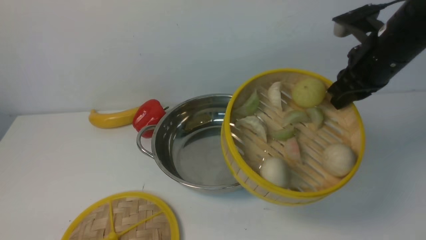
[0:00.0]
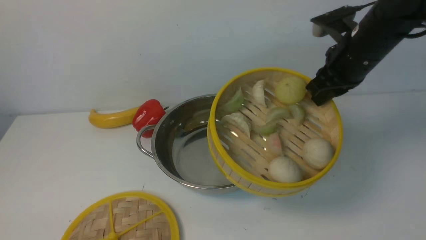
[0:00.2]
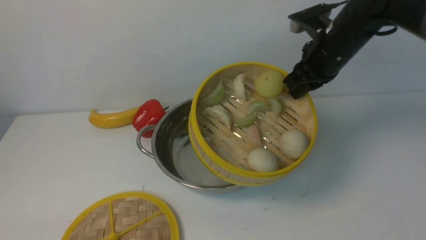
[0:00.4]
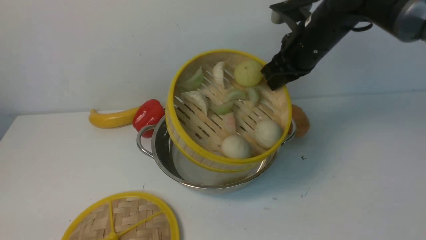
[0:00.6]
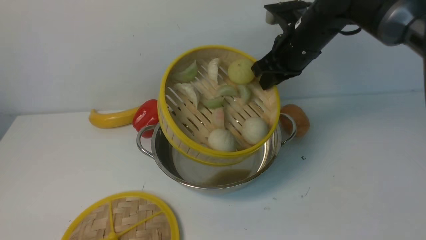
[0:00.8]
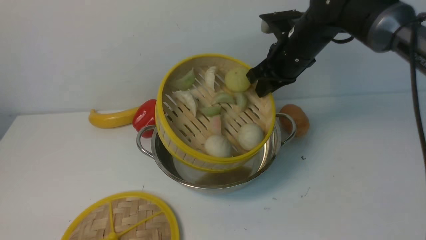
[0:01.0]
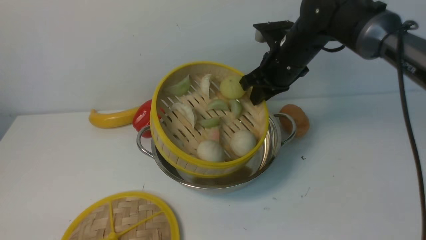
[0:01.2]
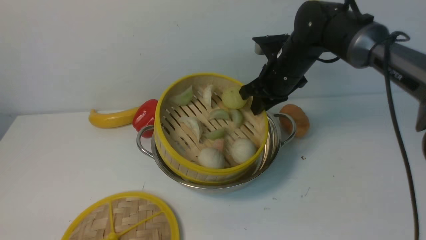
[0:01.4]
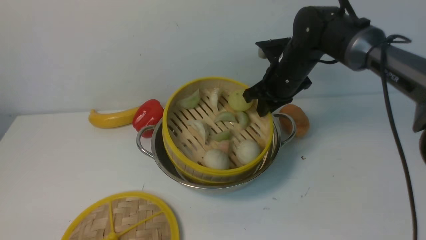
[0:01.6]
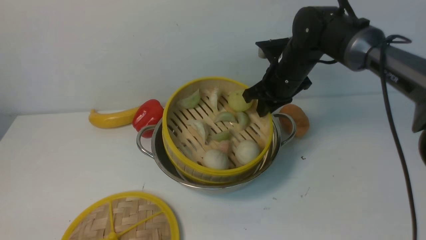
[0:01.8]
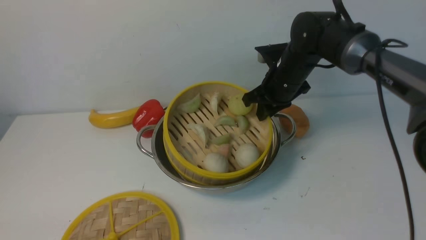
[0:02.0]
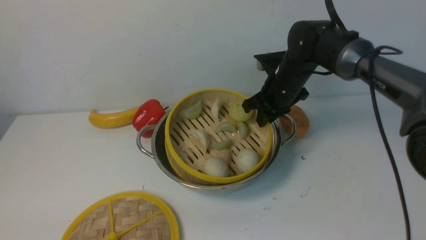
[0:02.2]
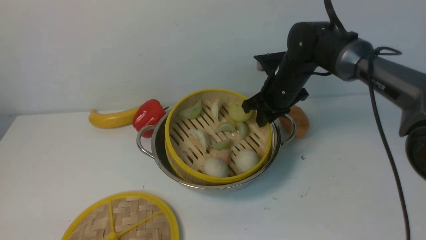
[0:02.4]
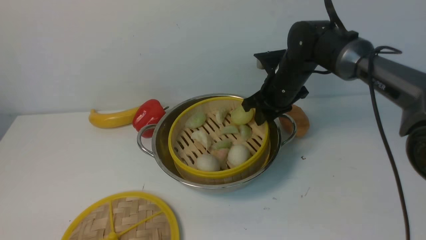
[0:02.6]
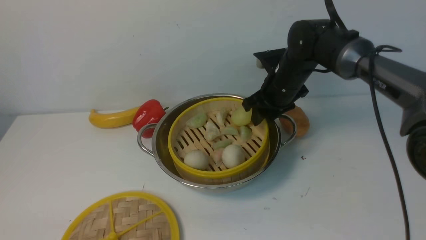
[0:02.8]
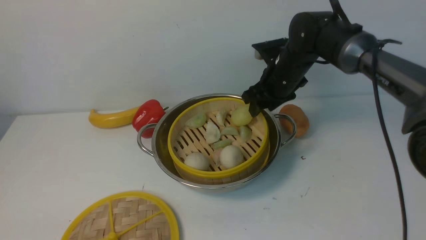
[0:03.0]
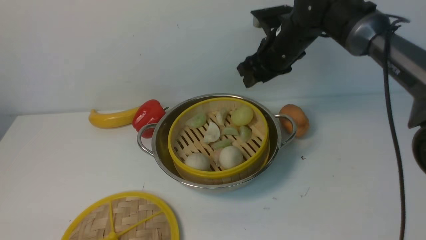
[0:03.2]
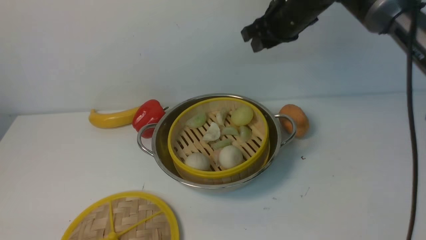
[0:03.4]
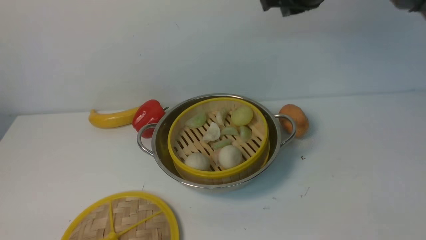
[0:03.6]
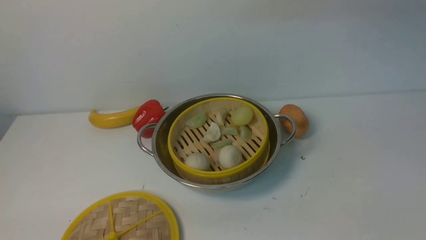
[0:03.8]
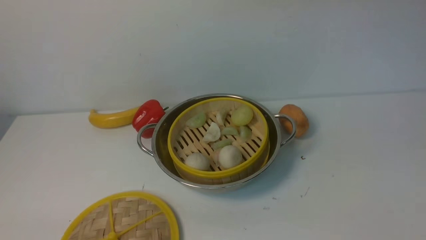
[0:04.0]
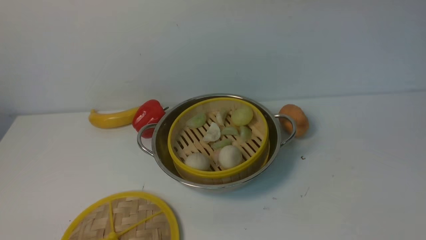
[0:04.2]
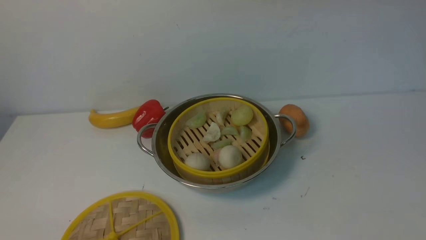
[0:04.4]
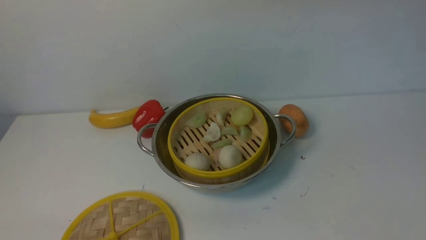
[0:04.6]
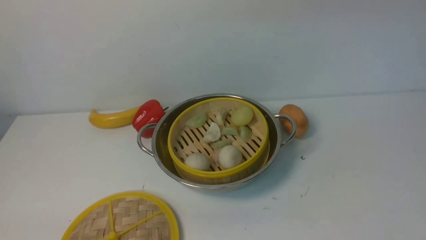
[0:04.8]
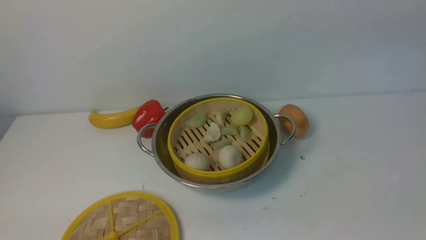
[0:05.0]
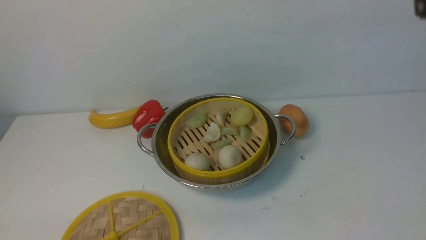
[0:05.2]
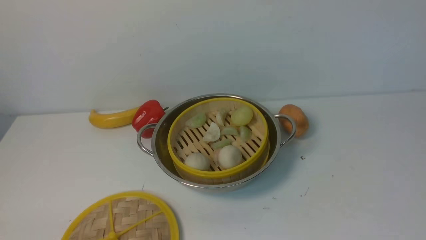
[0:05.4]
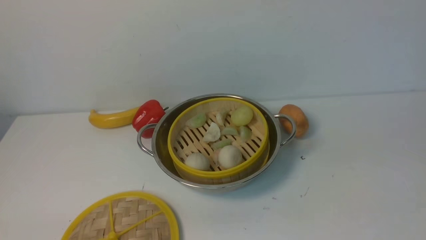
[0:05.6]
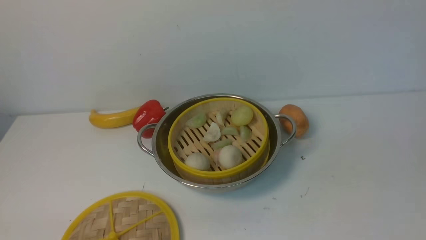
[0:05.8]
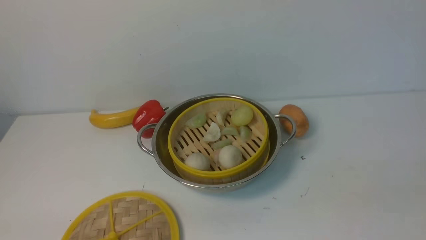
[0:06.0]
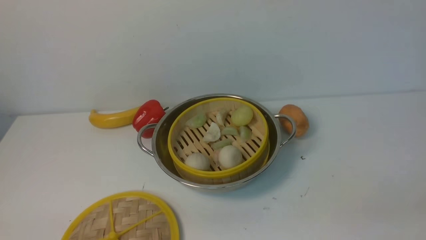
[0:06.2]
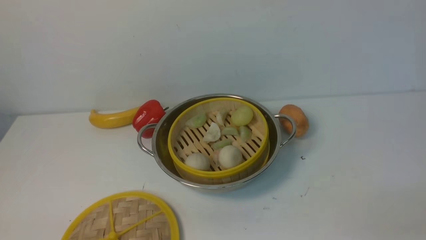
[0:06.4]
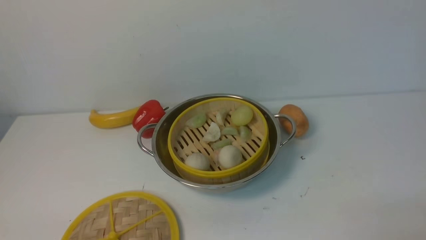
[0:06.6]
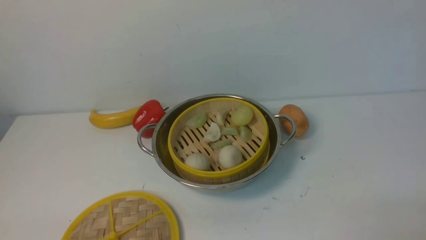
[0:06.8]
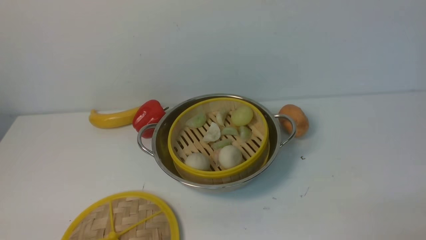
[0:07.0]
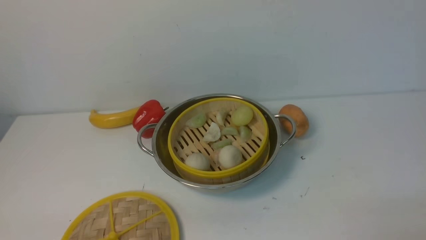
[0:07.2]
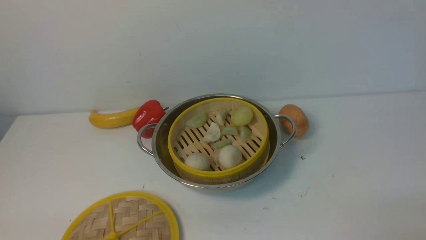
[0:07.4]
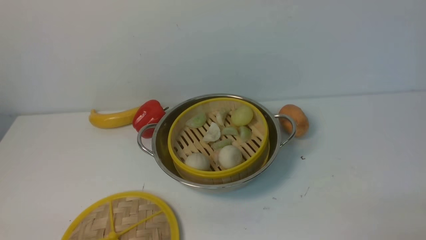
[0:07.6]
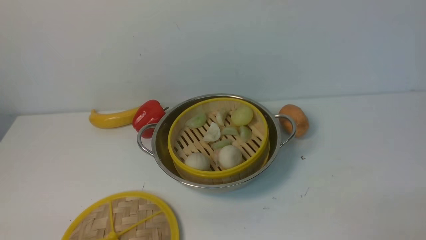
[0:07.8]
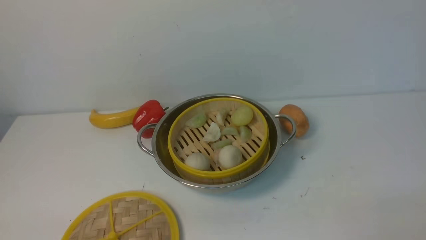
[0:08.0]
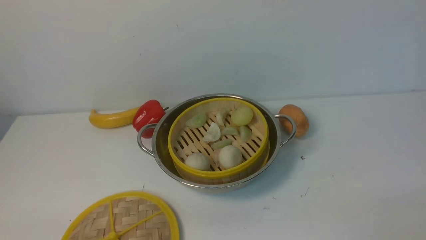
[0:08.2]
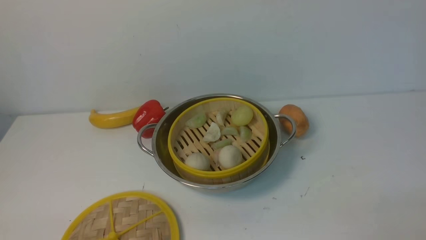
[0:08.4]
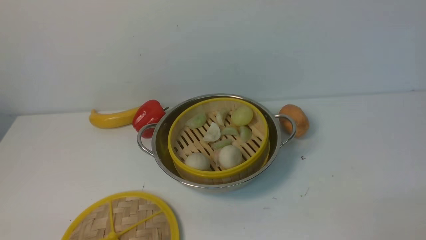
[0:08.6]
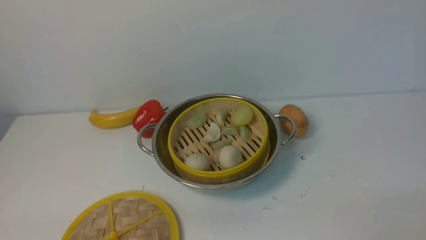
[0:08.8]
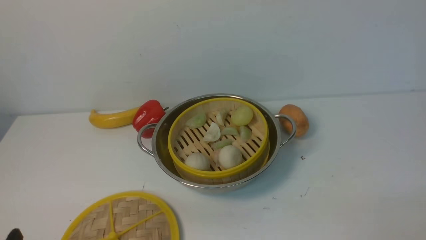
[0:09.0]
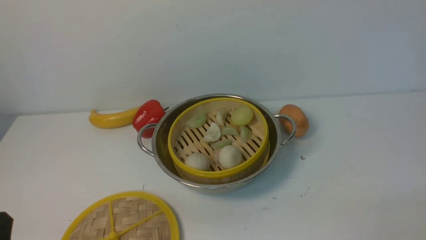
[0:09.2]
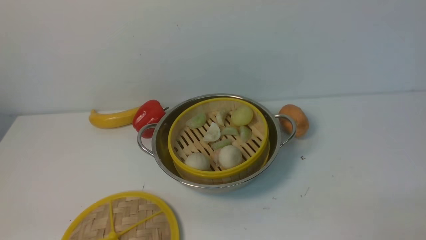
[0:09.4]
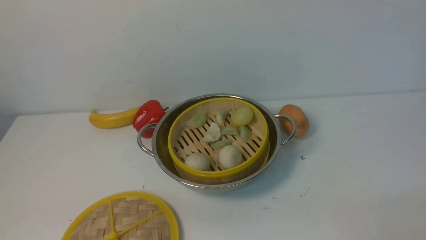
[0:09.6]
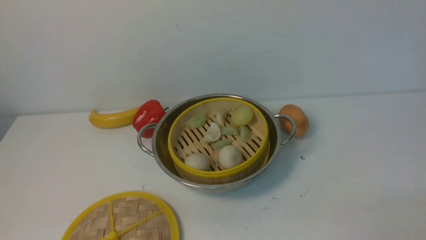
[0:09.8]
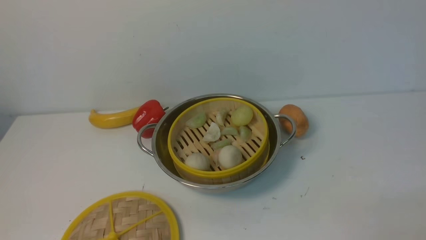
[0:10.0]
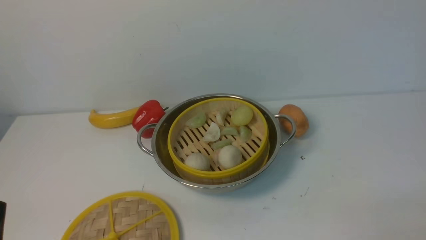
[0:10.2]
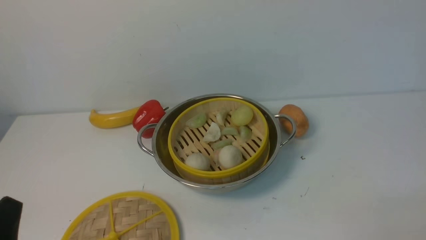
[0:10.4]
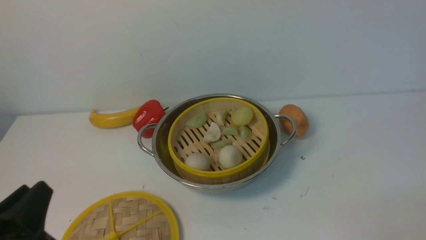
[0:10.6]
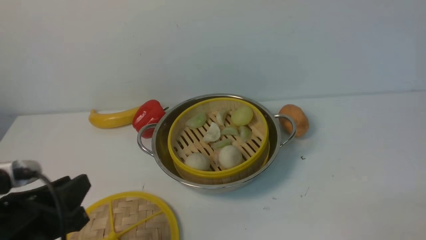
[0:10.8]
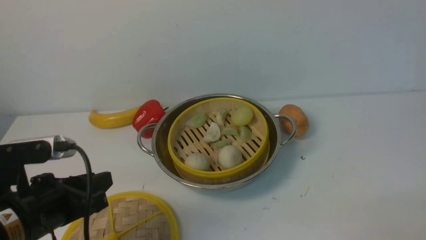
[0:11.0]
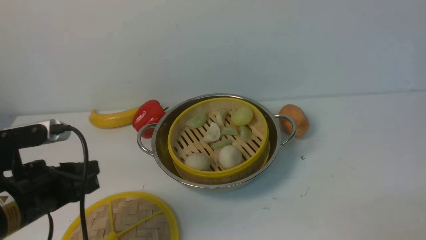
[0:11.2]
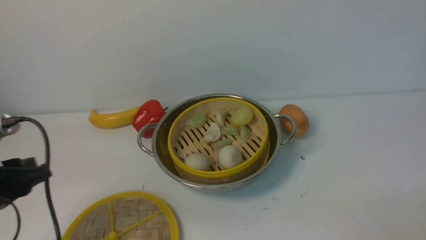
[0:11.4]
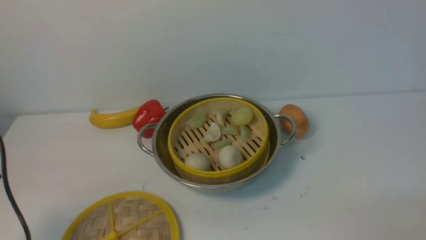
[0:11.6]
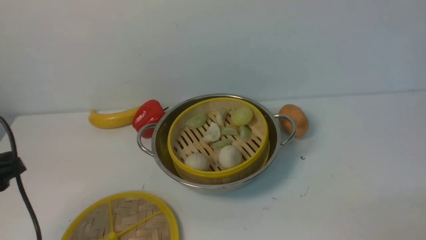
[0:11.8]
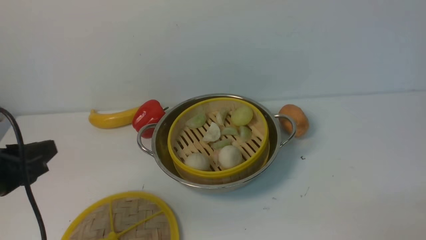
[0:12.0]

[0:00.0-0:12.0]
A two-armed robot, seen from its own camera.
Task of the whole recording: place the steamer in the pot on the white table, and put the lid on the steamer.
Step, 0:00.0 to 0:03.4: use the right arm to put the steamer into the iron steamer pot in the middle.
0:00.0 to 0:01.6: The right gripper moves to the left, forward and downward, approximately 15 cm.
0:01.6 to 0:03.0: The right gripper opens.
0:03.0 to 0:04.4: The right gripper moves upward, approximately 25 cm, and closes up.
0:04.4 to 0:06.0: The right gripper is displaced backward, downward and to the right by roughly 40 cm, and opens up.
0:10.4 to 0:12.0: The left gripper shifts roughly 10 cm forward.

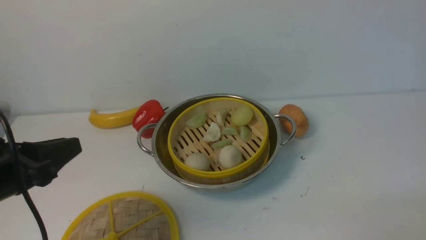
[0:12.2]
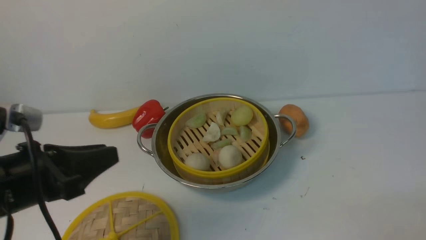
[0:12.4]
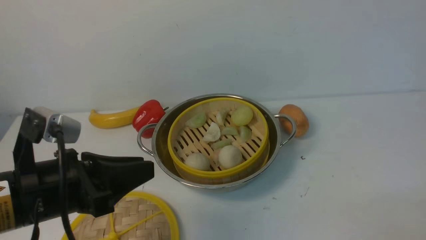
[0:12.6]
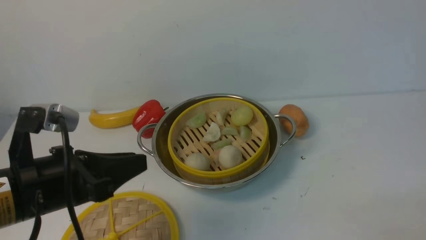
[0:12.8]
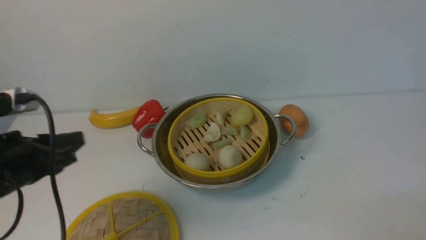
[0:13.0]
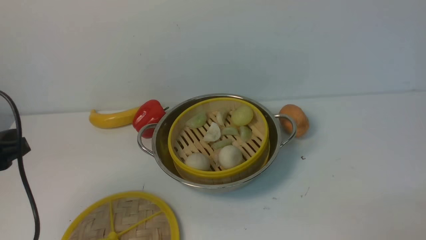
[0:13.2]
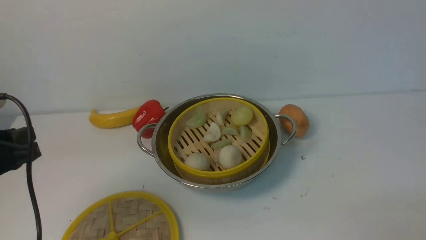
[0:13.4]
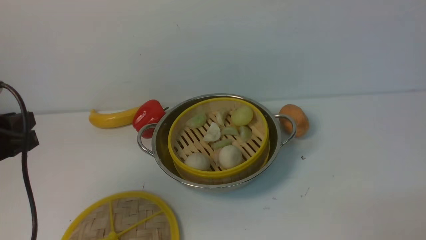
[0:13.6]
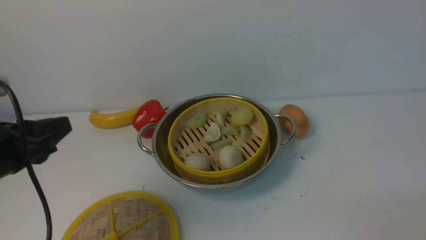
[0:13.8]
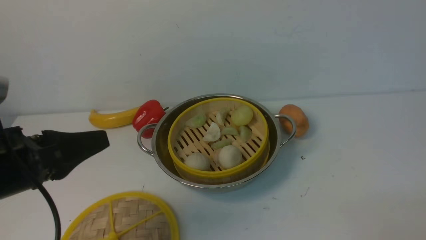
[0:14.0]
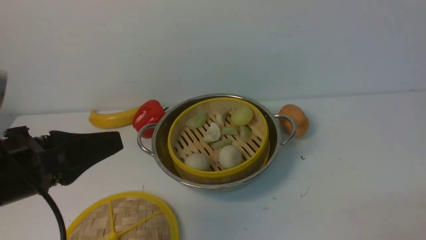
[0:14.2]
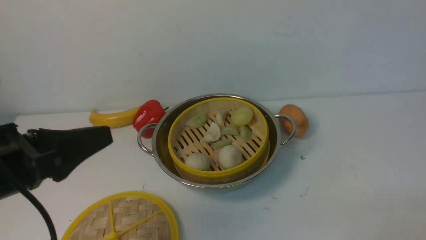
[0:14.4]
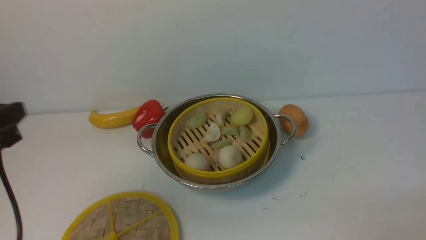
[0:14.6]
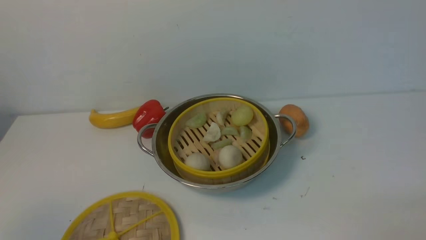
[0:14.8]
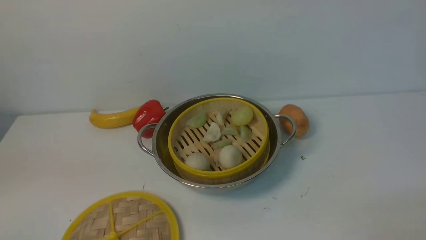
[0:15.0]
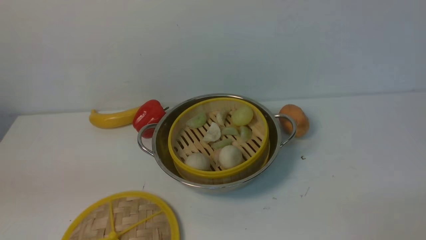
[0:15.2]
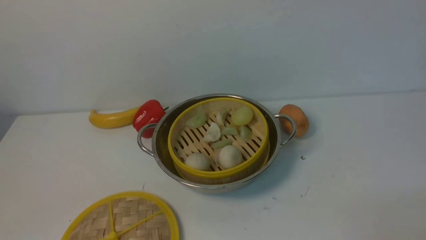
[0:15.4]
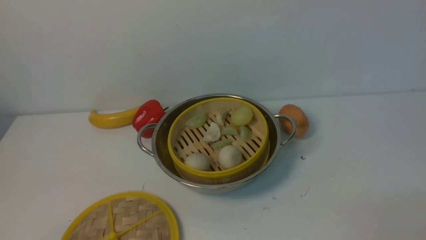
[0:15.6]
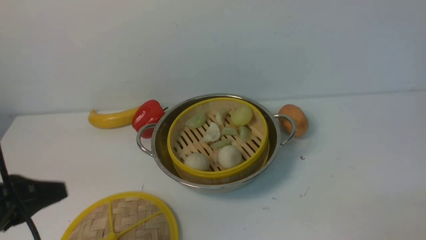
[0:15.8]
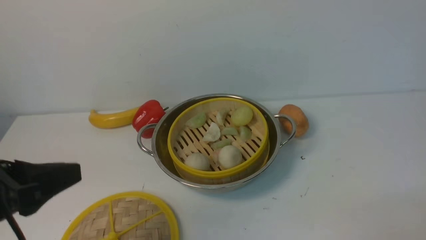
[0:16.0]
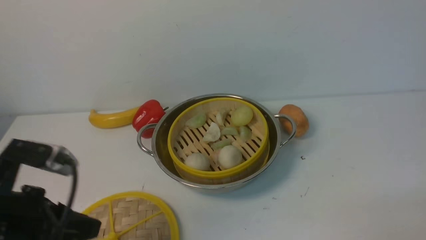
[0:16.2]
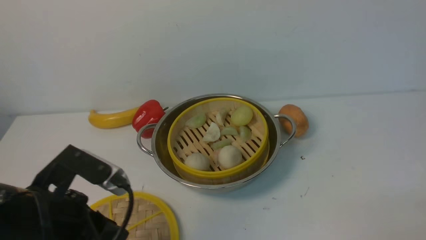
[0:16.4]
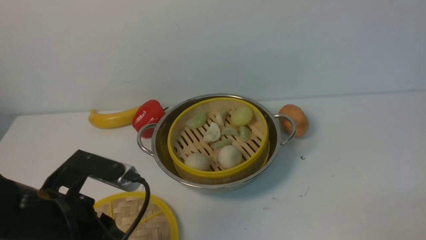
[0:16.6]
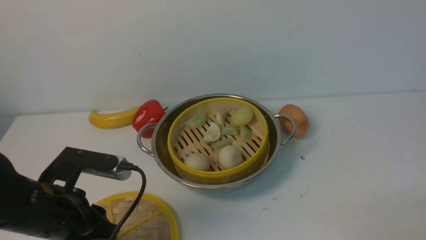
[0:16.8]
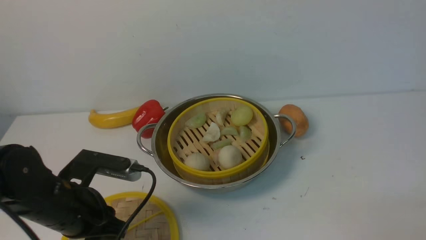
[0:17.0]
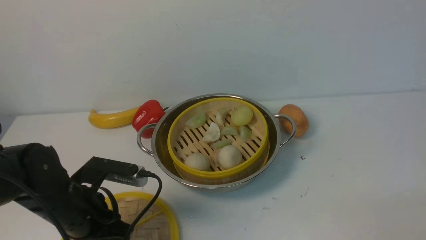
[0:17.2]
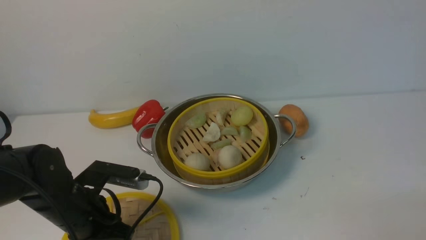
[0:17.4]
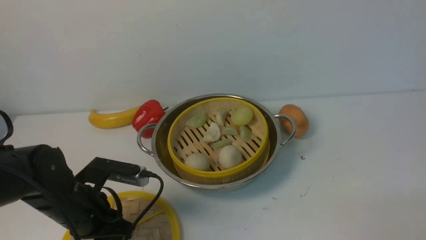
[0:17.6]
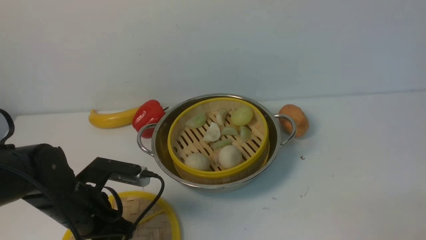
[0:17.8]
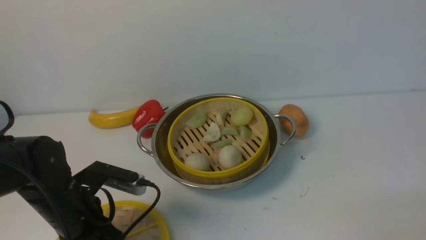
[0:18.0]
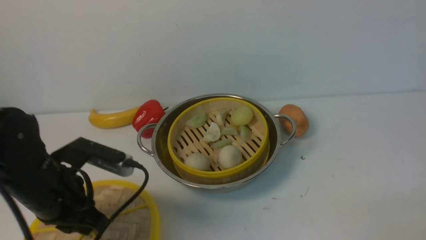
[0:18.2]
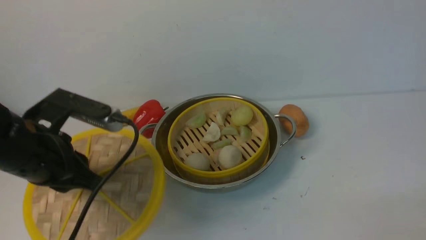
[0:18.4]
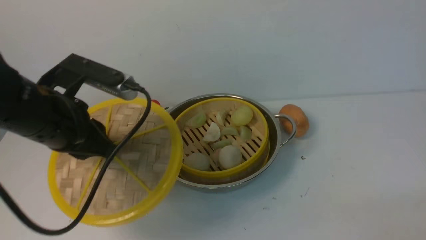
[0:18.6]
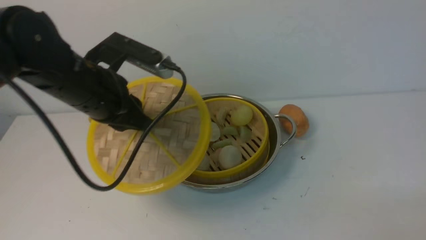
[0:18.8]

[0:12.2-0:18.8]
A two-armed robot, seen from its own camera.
Task of the whole recording: place the steamer in the pot on the white table, and put the lid on the steamer.
Step, 0:12.2 to 0:18.4: use the left arm to lift the lid of the steamer.
0:12.2 to 0:13.8: The left gripper moves about 5 cm to the right and comes back.
0:13.8 to 0:15.4: The left gripper shifts about 15 cm to the left and backward.
0:15.4 to 0:17.2: The left gripper goes about 25 cm to the right, forward and downward.
0:17.2 to 0:18.8: The left gripper heads upward and forward, covering about 15 cm, and closes.
